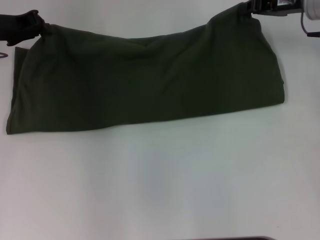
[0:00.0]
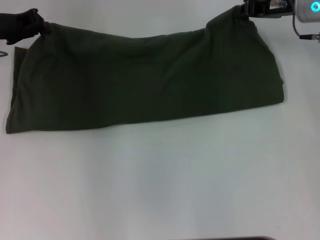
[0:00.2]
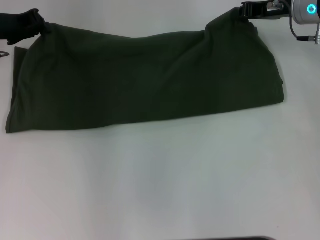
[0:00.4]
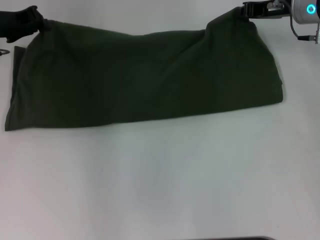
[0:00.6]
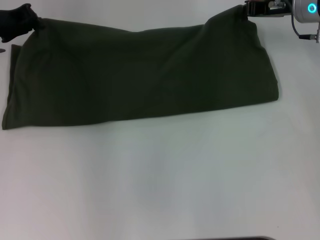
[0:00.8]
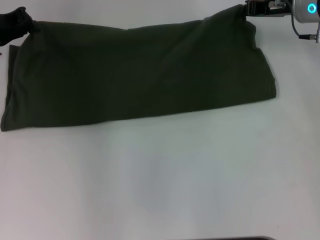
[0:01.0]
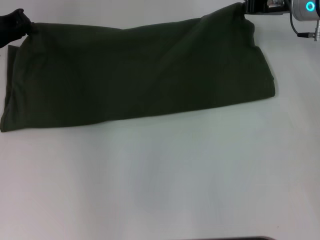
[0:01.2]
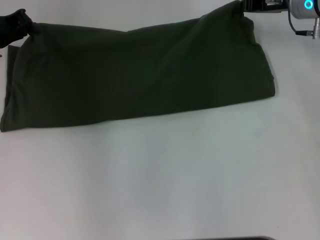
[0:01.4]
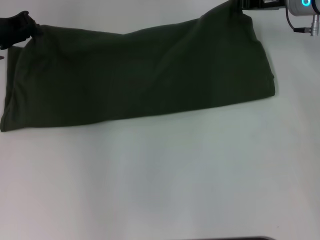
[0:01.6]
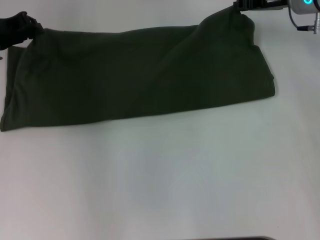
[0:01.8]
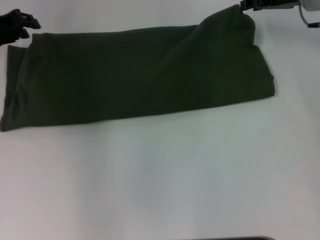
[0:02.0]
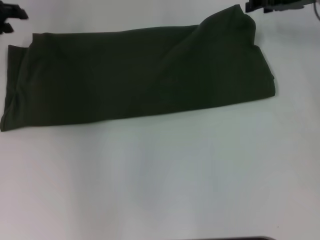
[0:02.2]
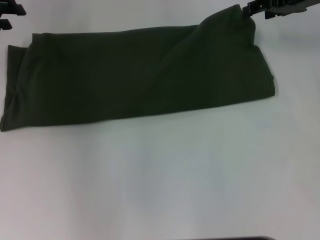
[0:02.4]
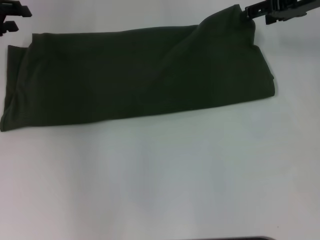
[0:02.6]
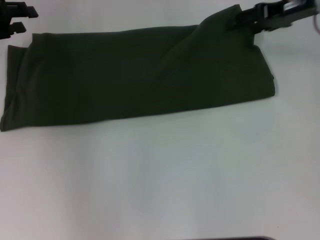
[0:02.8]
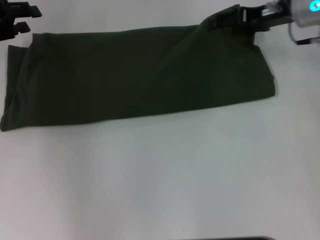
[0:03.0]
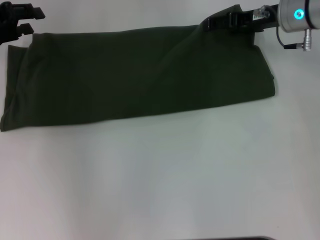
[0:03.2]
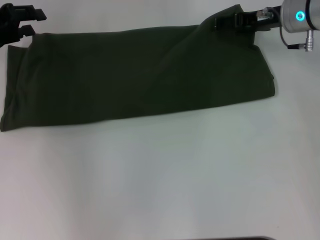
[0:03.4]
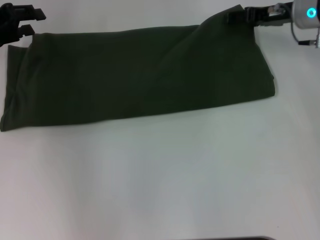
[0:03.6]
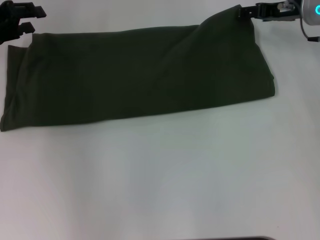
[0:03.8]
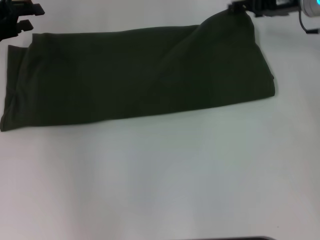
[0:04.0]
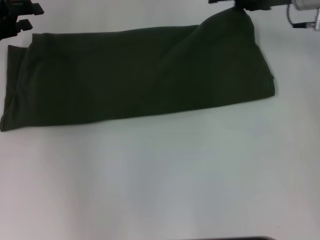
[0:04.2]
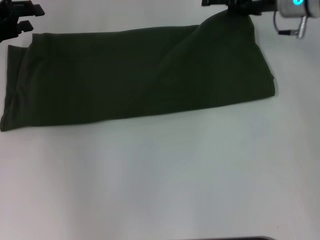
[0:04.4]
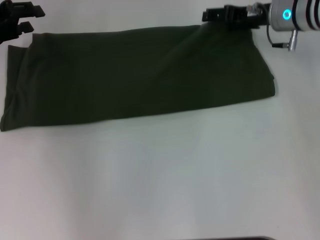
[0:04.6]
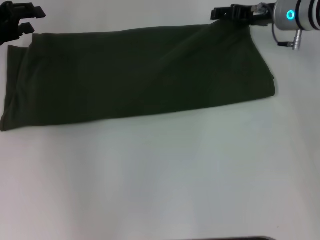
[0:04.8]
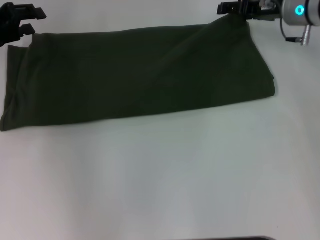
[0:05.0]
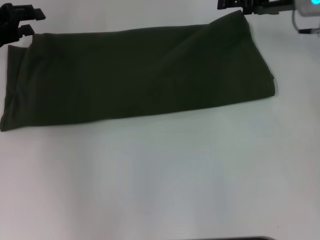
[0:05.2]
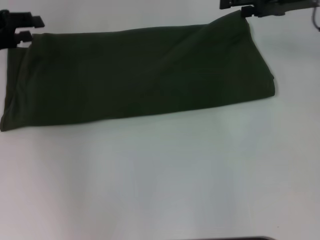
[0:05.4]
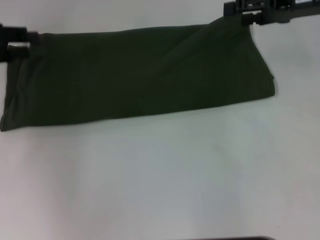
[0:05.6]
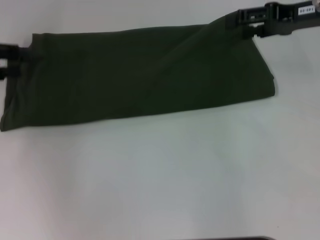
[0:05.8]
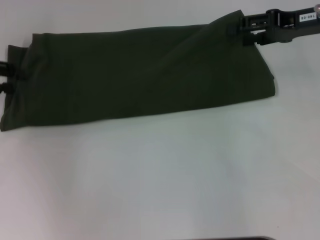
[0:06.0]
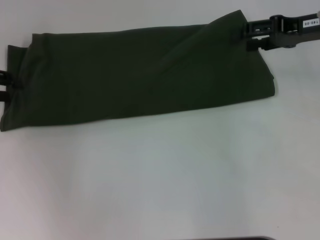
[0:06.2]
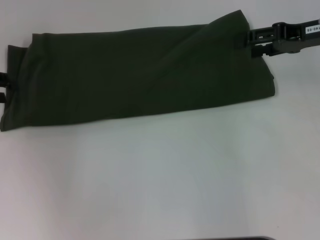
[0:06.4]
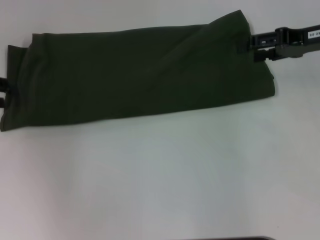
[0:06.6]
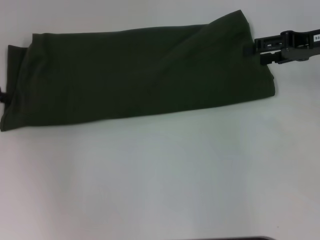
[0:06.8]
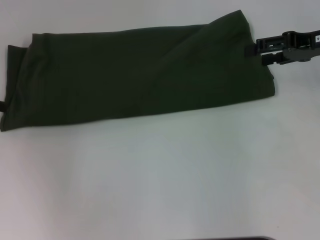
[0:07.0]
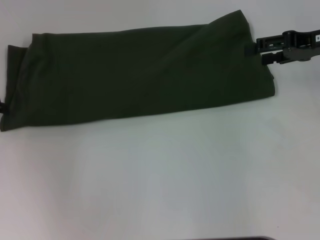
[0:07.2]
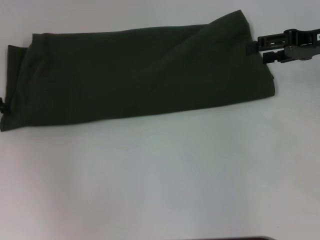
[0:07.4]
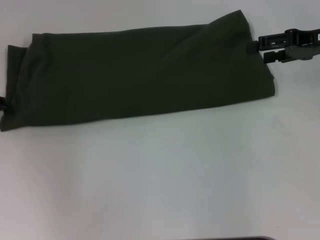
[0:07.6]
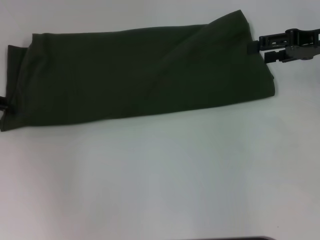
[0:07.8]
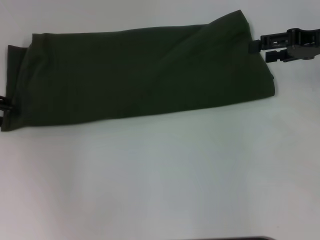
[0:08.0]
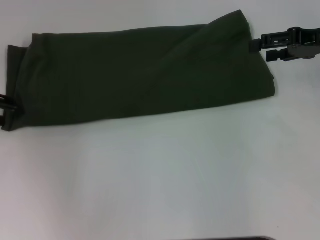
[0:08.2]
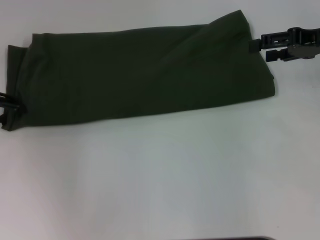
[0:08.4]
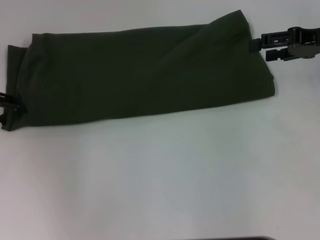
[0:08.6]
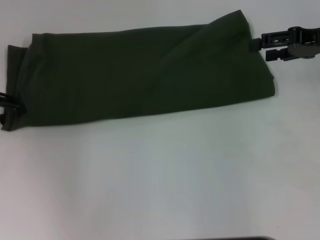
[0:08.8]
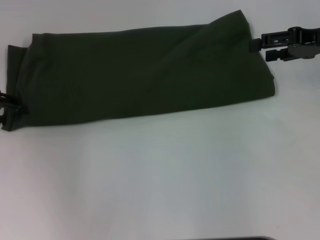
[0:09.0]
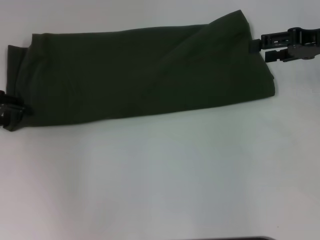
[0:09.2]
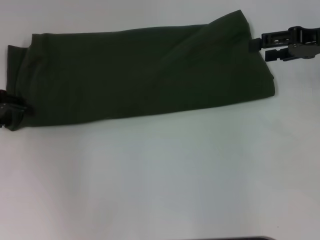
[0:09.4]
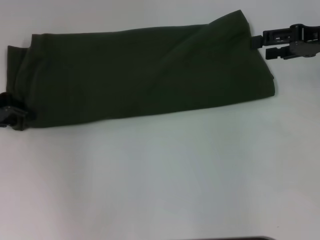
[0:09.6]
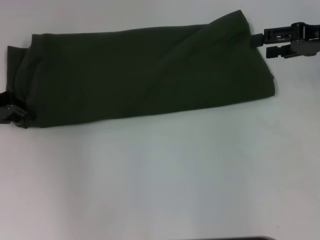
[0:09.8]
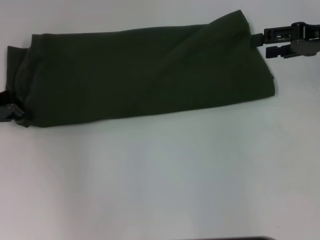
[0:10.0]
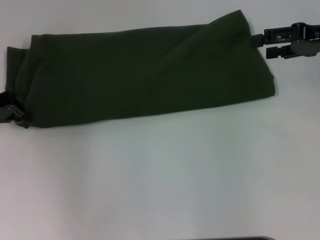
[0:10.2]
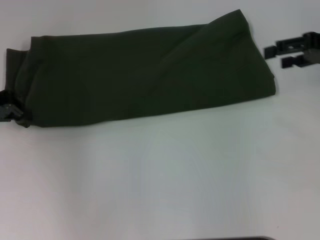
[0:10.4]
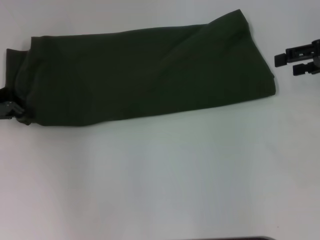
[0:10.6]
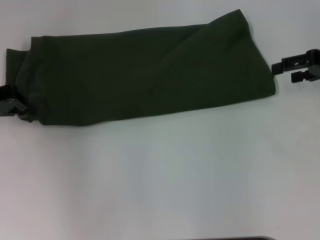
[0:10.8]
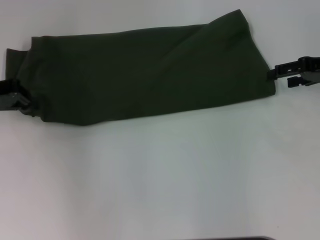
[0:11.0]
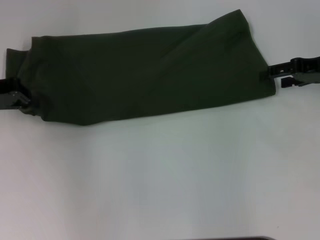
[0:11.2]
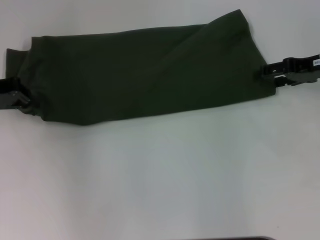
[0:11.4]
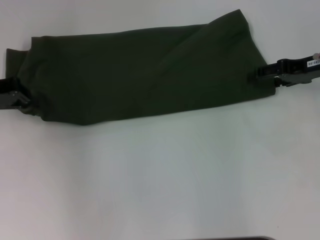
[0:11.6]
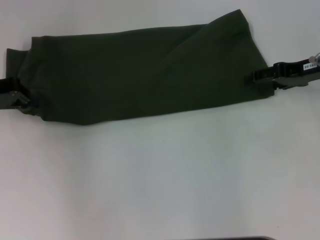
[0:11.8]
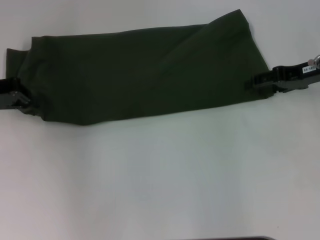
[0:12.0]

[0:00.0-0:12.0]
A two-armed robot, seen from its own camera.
0:00.0 to 0:01.6: The grippers move only a little.
0:01.6 to 0:03.0: The right gripper opens its fingers, while the left gripper opens up.
0:03.0 to 0:04.4: The grippers stay close to where they were, moving slightly.
0:04.4 to 0:06.0: The right gripper goes approximately 10 cm to the right and backward; the left gripper shifts by approximately 5 cm.
0:06.0 to 0:09.0: The grippers make only small movements.
0:09.0 to 0:10.4: The left gripper closes.
0:10.4 to 0:12.0: The right gripper ends up roughly 5 cm from where it was.

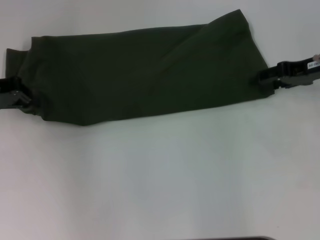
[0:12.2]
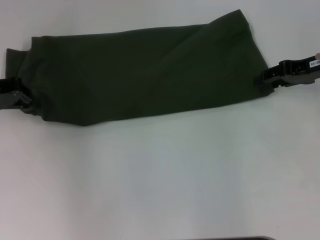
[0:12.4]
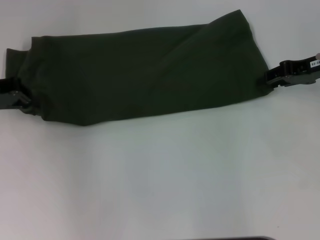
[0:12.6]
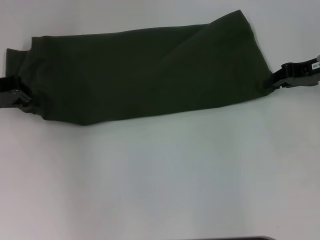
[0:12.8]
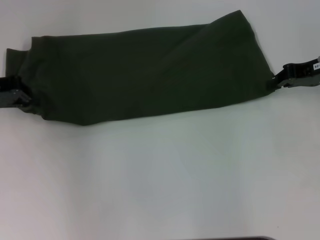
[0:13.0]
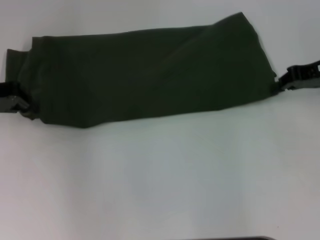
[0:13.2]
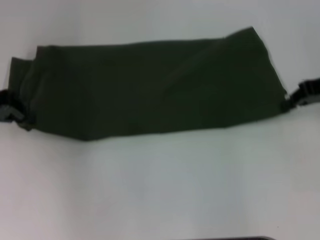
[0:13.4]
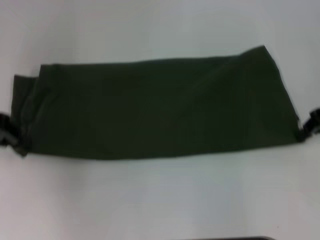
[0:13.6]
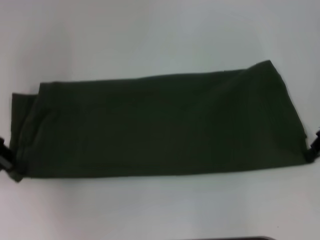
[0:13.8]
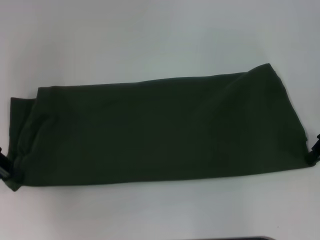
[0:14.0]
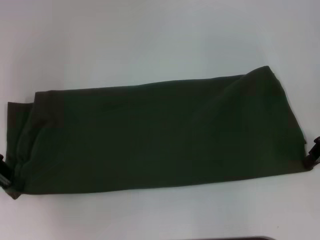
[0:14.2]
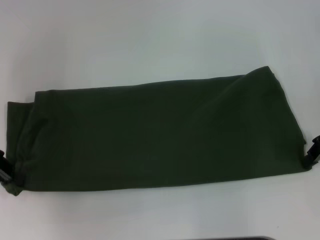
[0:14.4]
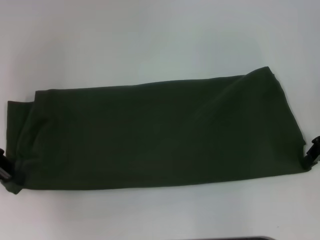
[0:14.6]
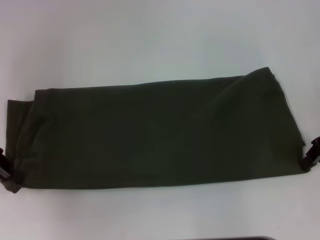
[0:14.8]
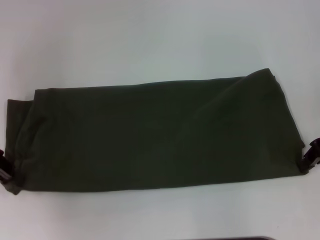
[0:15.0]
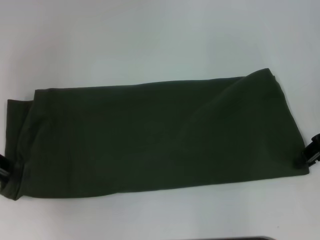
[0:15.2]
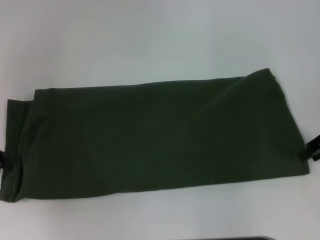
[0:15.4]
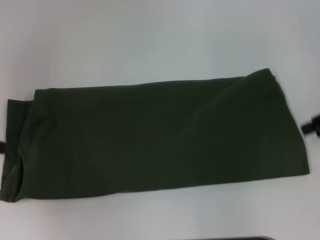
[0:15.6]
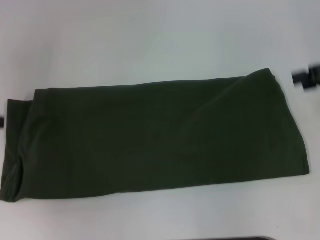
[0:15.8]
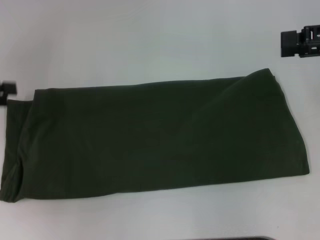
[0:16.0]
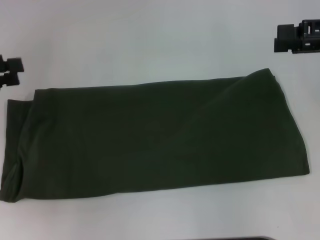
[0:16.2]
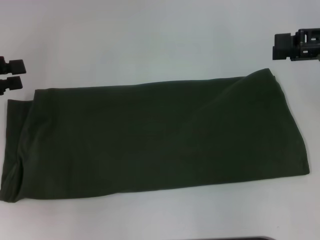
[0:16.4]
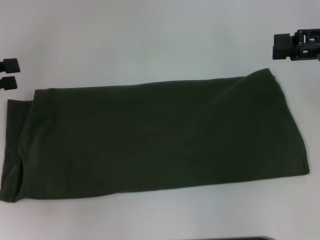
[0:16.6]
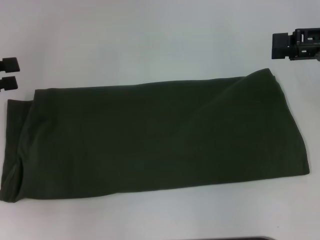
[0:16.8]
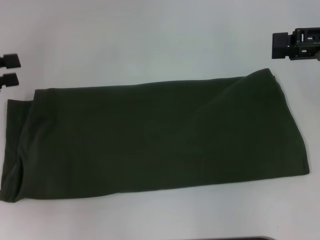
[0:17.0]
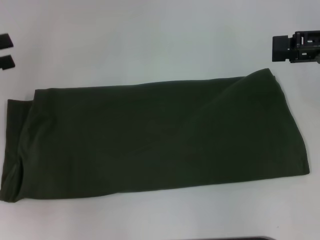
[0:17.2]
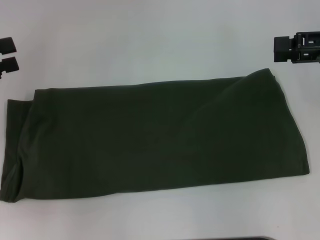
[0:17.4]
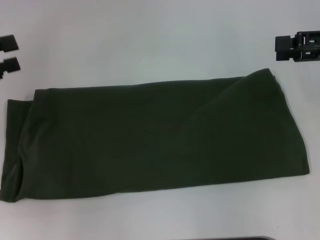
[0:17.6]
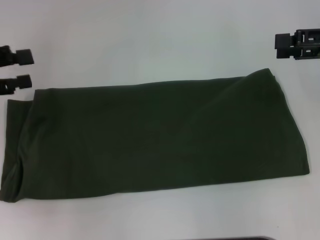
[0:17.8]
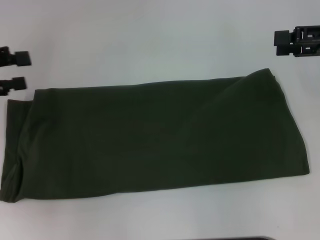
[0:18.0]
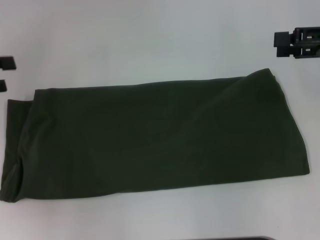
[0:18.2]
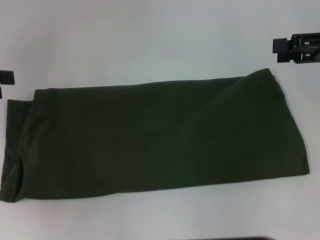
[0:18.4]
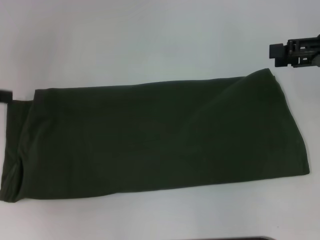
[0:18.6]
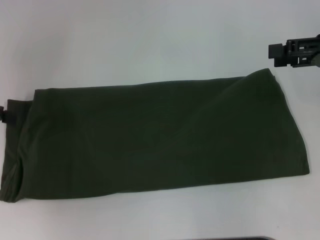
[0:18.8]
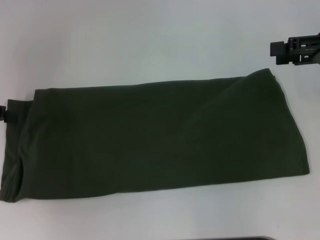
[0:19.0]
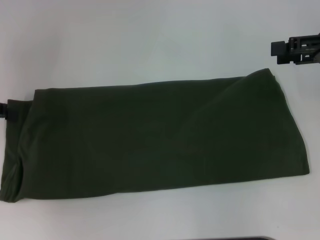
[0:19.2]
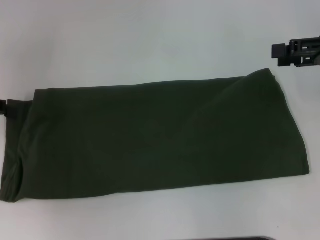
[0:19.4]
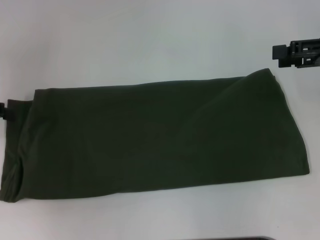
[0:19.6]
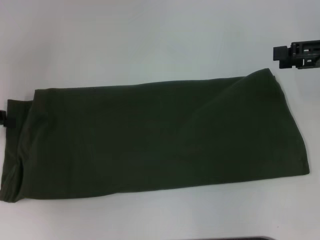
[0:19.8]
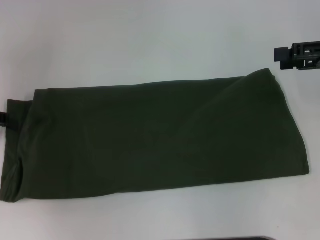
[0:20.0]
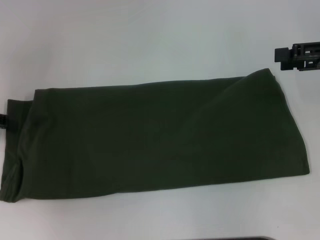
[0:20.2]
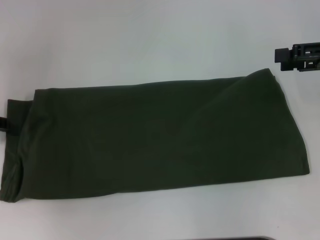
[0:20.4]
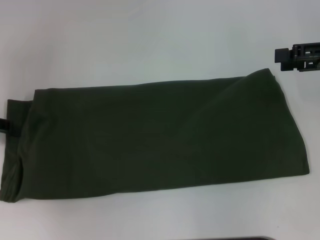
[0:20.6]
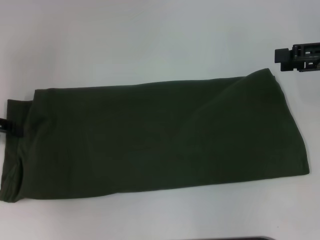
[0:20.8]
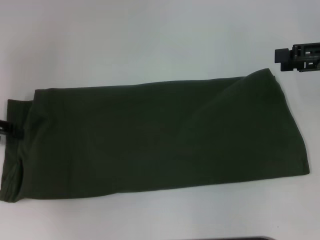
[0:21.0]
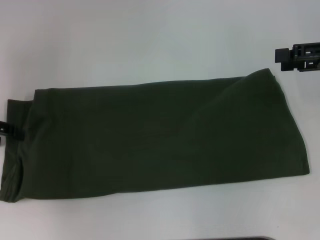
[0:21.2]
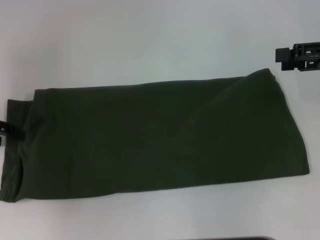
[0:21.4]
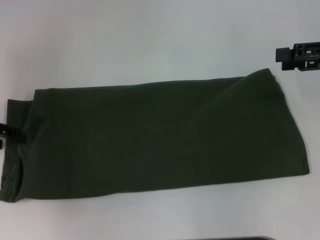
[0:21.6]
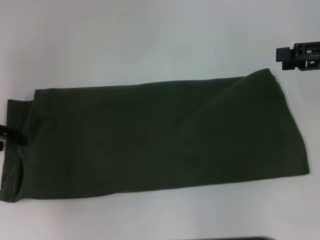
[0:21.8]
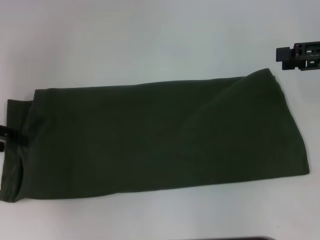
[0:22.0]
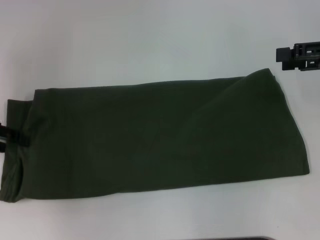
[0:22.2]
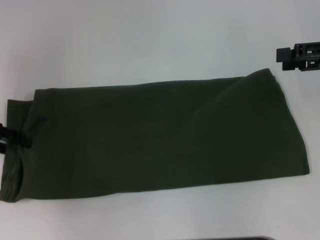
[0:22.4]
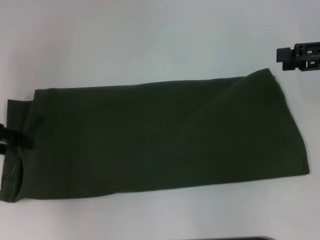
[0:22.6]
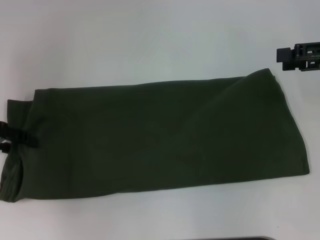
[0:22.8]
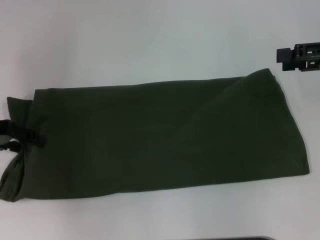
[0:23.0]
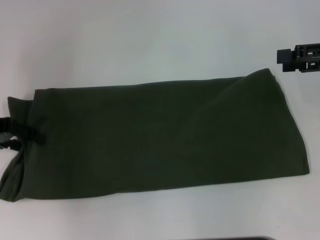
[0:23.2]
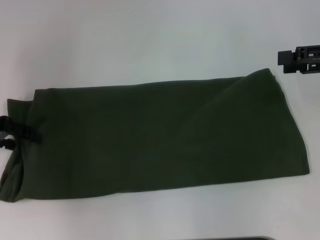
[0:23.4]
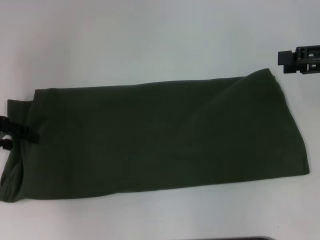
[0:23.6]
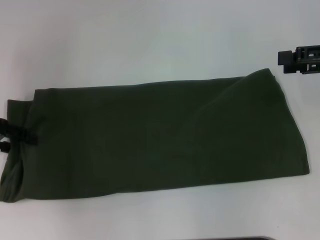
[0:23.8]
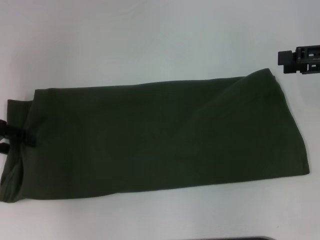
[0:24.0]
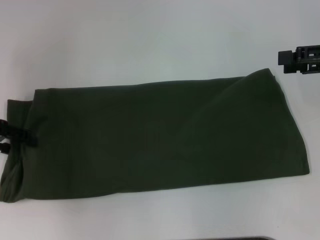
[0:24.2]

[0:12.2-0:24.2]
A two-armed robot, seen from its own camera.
Step, 0:12.2 to 0:15.2: Pull the clothes with your left hand.
Step, 0:12.2 to 0:15.2: Pull the clothes with your right hand.
0:12.2 to 0:13.8: The left gripper travels backward by about 5 cm; the right gripper moves approximately 5 cm, and closes.
0:13.8 to 0:15.2: The grippers make only small movements.
0:15.2 to 0:16.6: The right gripper goes approximately 5 cm upward, and opens its fingers. Meanwhile the left gripper opens its fingers.
0:16.6 to 0:18.2: The grippers move only a little.
0:19.8 to 0:21.2: The grippers stay close to where they were, moving slightly.
0:21.2 to 0:22.6: Both grippers stay about where they are.
0:22.6 to 0:24.2: There are only small adjustments of the grippers.
